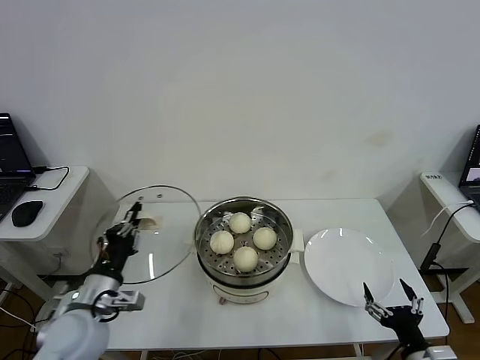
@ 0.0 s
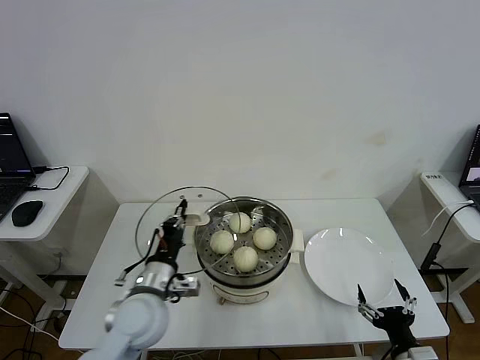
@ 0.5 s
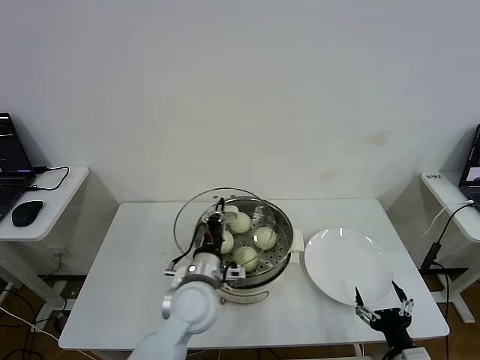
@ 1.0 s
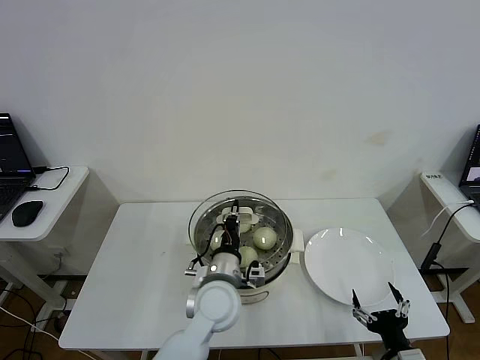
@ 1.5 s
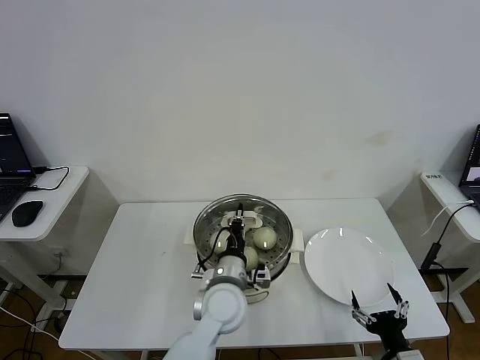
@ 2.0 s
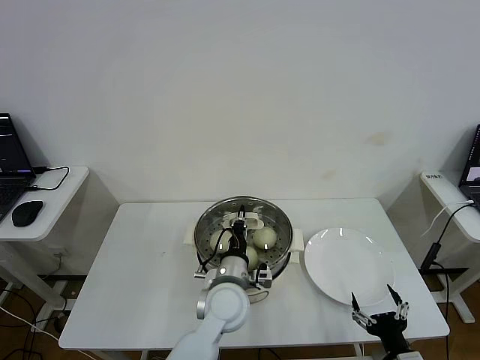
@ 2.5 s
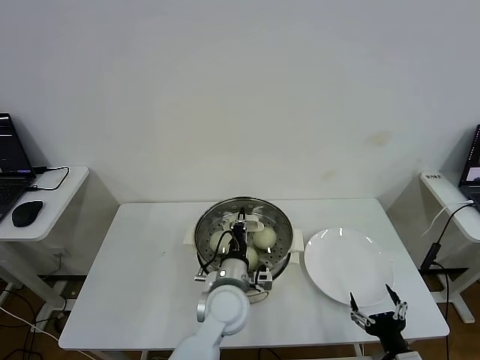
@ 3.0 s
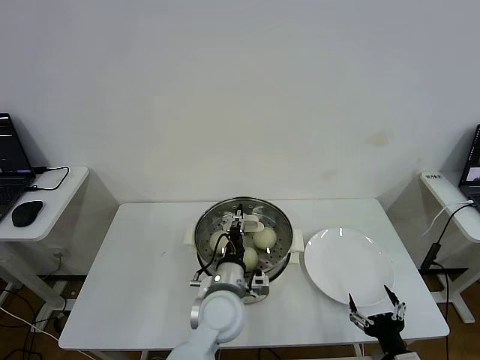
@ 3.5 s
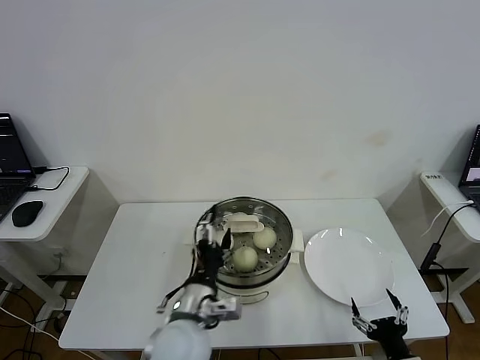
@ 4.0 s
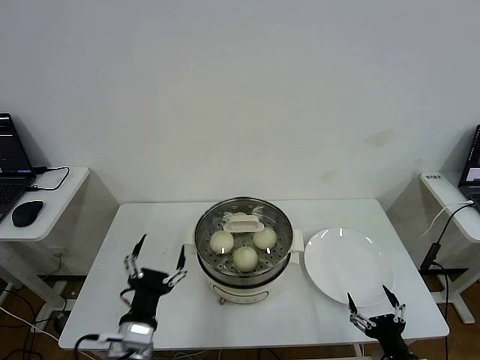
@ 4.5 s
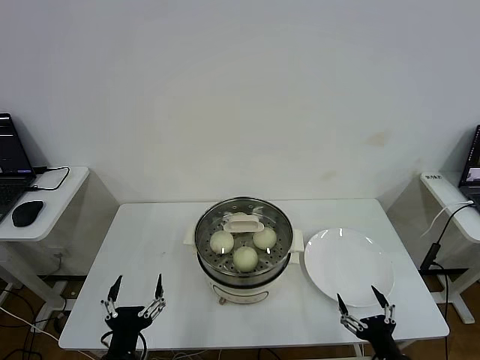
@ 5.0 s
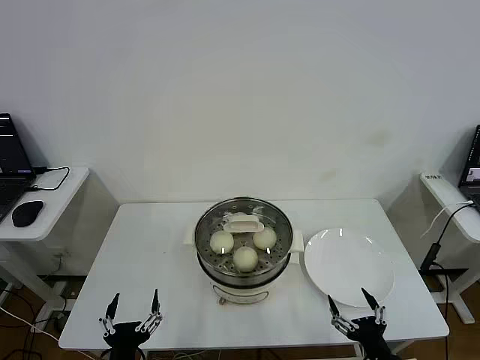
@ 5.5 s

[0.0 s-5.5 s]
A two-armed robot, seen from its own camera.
Step, 0.0 to 3.0 s: Place the pot lid on the steamer with left gripper.
0.0 to 2.0 s: The left gripper shifts roughly 25 cm to the right.
2.0 to 3.5 s: The left gripper opens up.
3.5 to 5.5 s: The left gripper travels backward and to the left by about 30 cm, and opens up.
